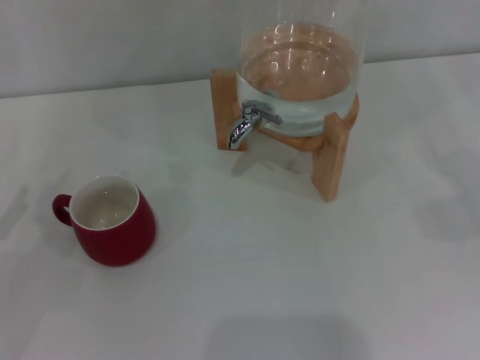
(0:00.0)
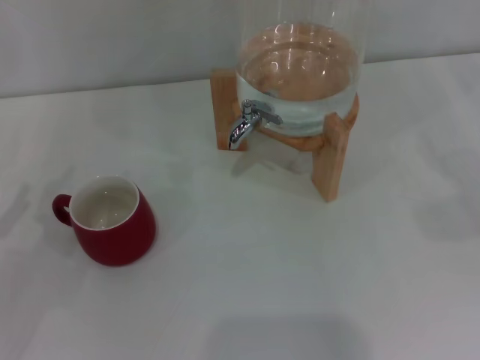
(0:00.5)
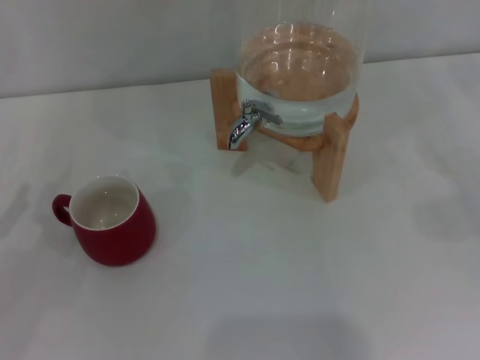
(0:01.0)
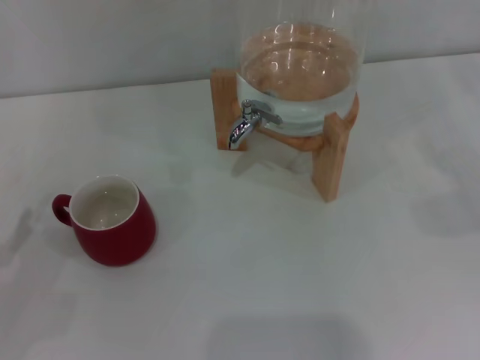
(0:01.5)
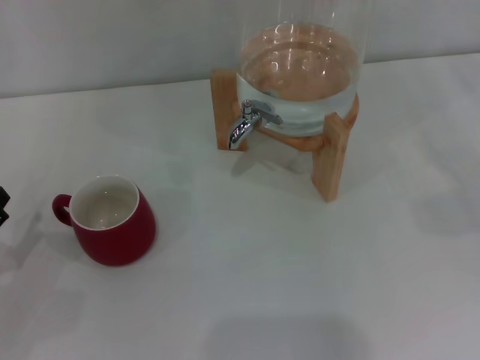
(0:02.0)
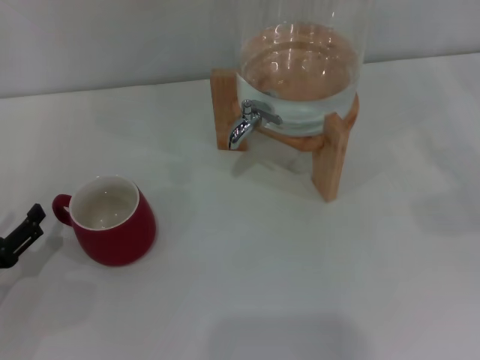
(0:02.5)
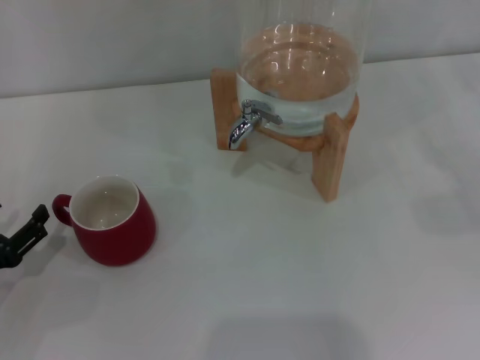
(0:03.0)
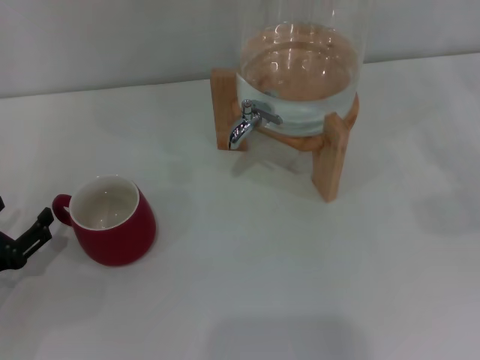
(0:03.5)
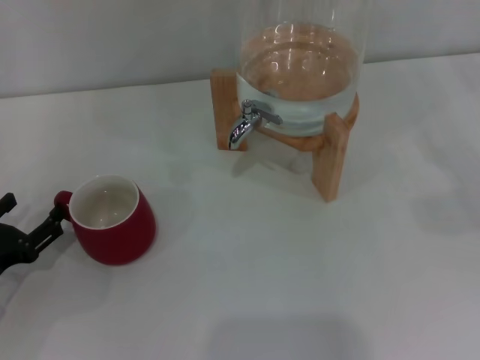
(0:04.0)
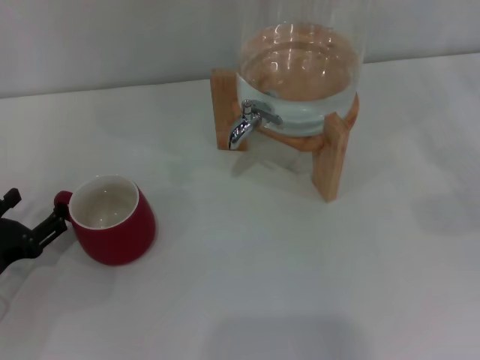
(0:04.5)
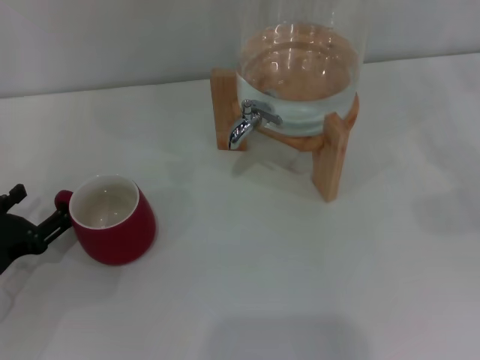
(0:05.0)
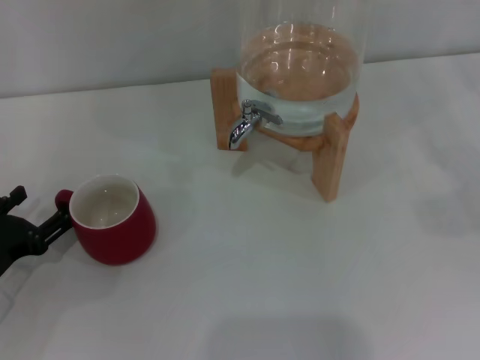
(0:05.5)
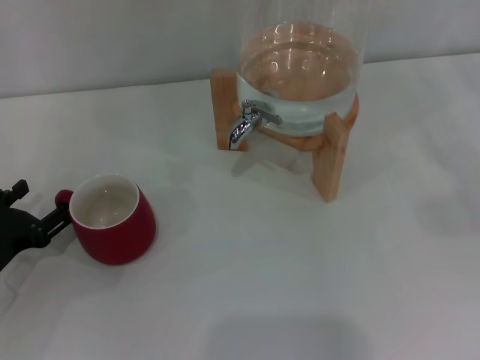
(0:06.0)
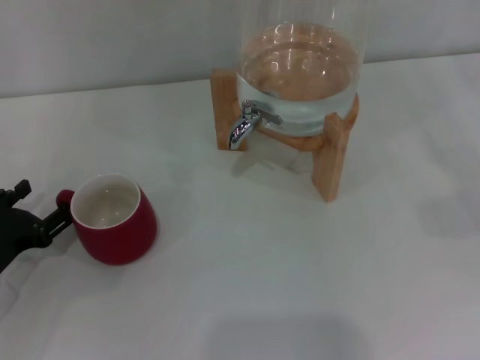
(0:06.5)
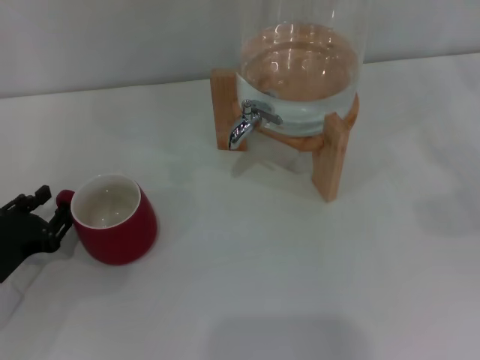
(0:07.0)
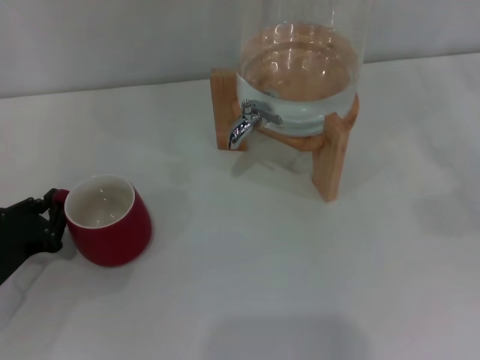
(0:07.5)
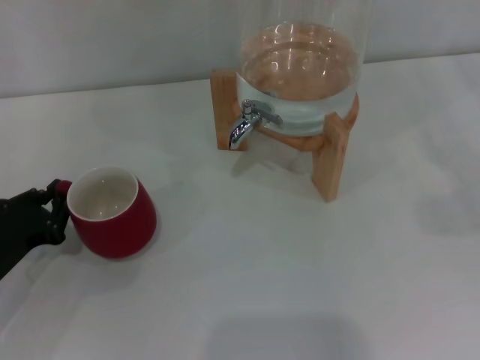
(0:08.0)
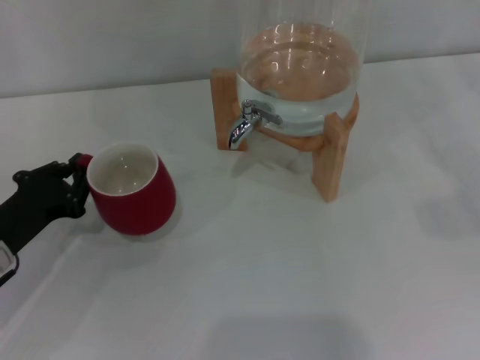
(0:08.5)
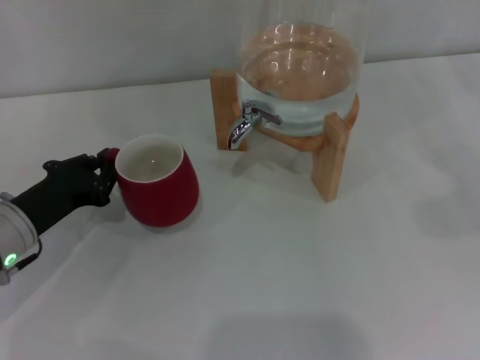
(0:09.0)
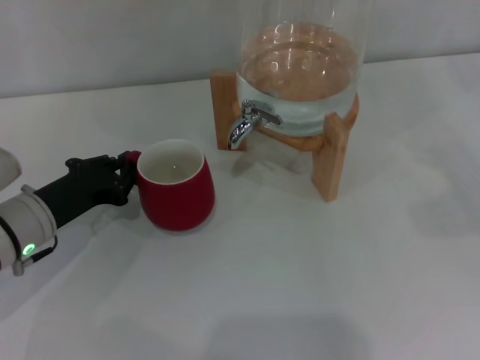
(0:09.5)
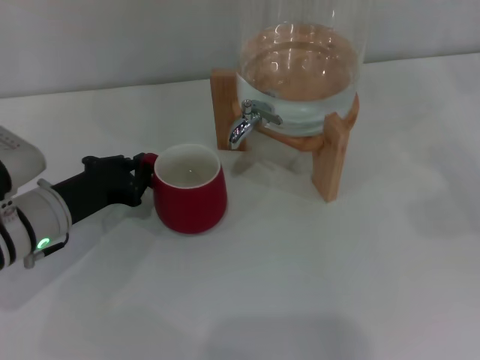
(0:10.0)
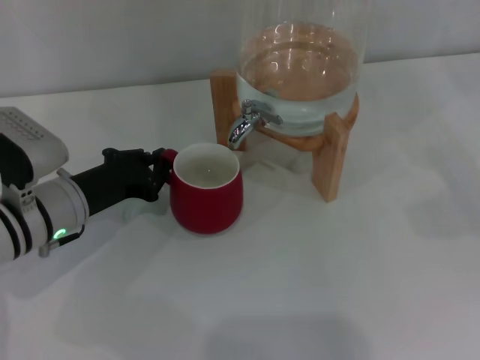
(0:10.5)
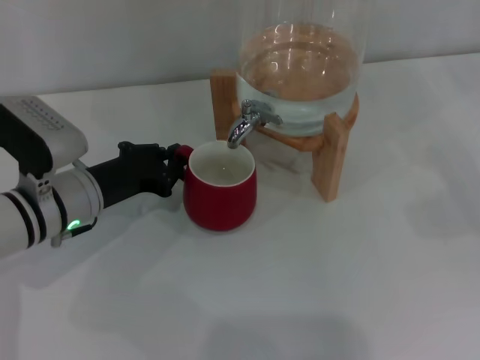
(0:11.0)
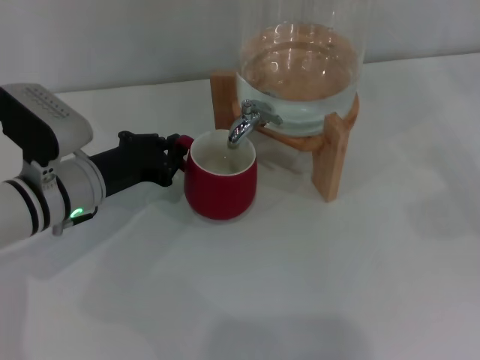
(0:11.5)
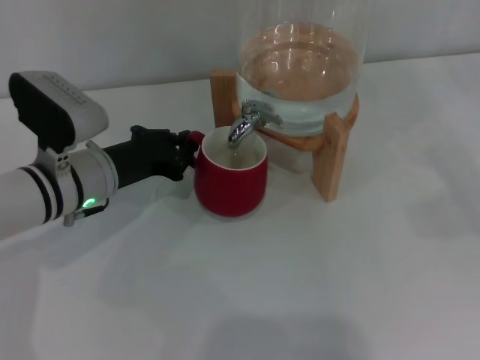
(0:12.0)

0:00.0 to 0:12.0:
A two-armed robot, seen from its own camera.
Task of the whole recording: the left gripper pick up the red cup and place it horizontally under the faucet, the right gripper turn on the faucet to fill the cup, and then turn off the faucet.
0:02.0 to 0:06.0: There are only small adjustments of the grippers.
0:06.0 to 0:08.0: The left gripper closes up.
0:08.0 to 0:10.0: The left gripper heads to the right and forward, covering some 10 cm.
0:10.0 to 0:12.0: The left gripper goes some 5 cm to the right.

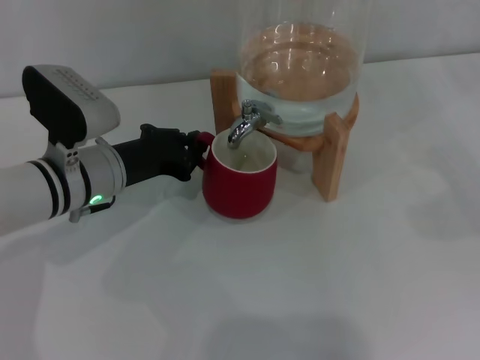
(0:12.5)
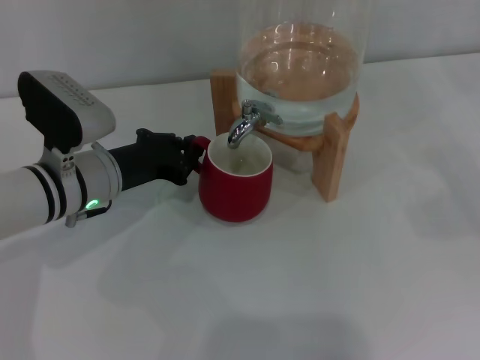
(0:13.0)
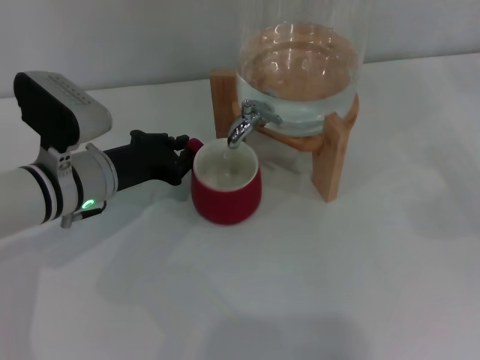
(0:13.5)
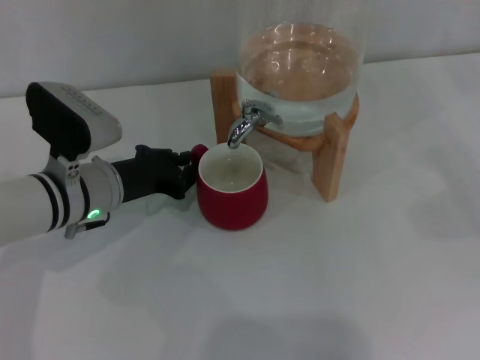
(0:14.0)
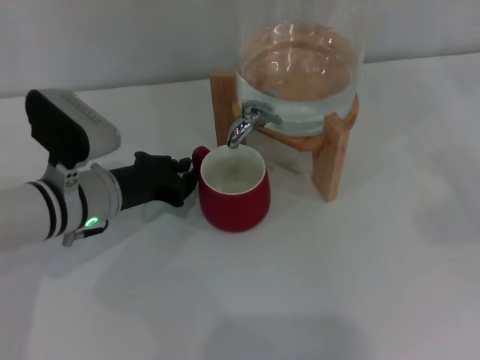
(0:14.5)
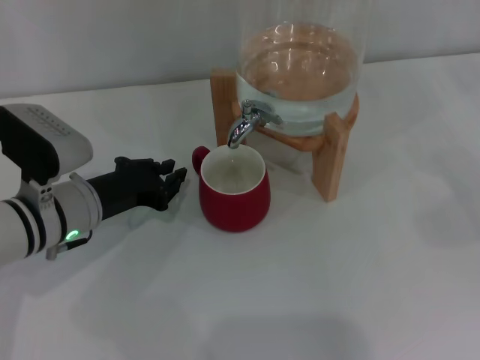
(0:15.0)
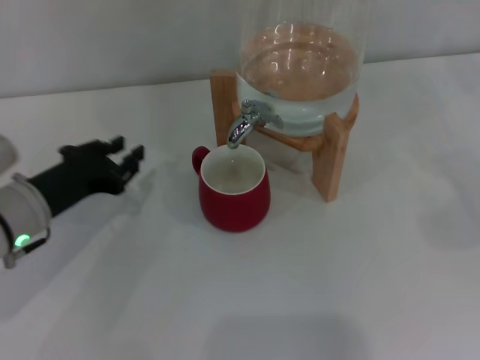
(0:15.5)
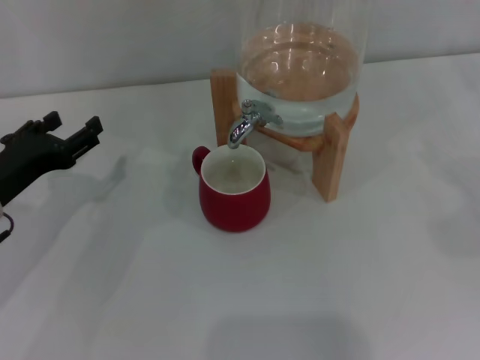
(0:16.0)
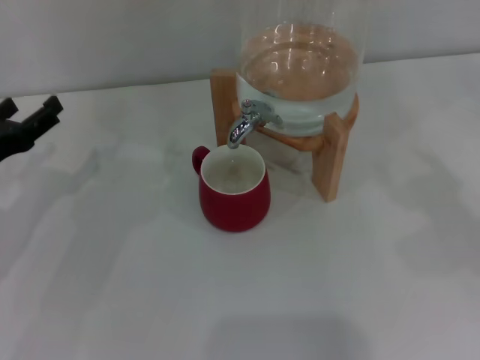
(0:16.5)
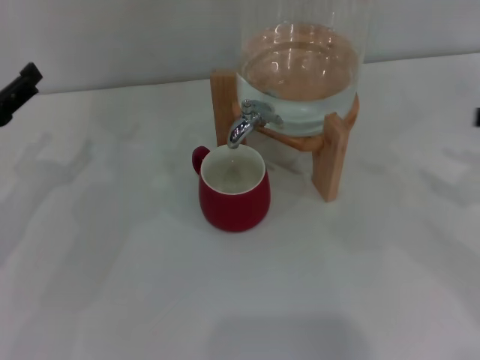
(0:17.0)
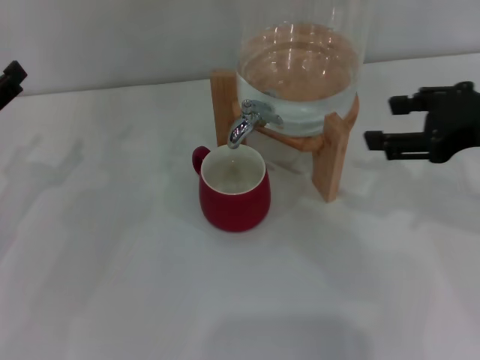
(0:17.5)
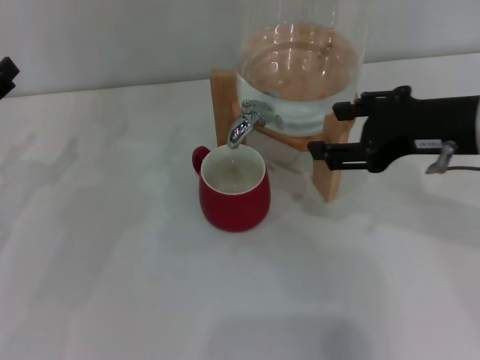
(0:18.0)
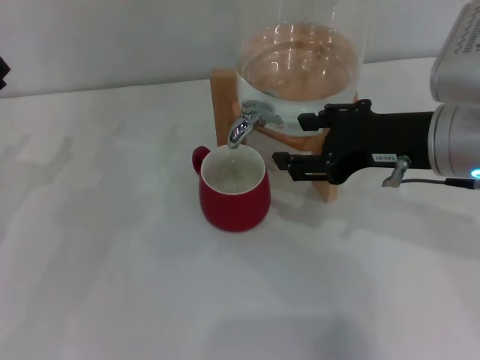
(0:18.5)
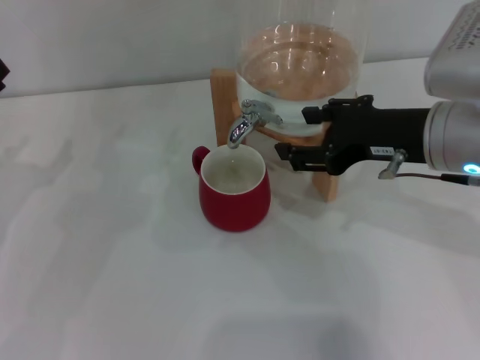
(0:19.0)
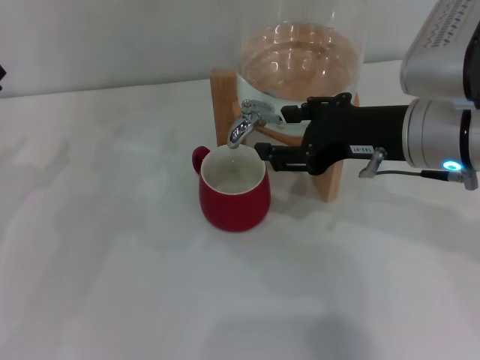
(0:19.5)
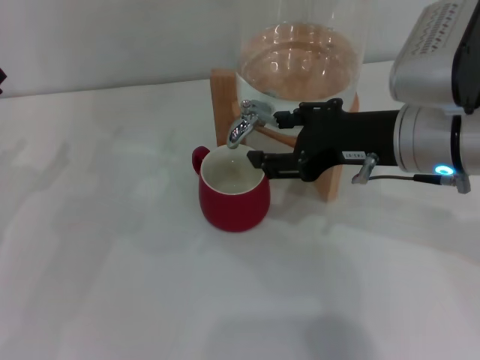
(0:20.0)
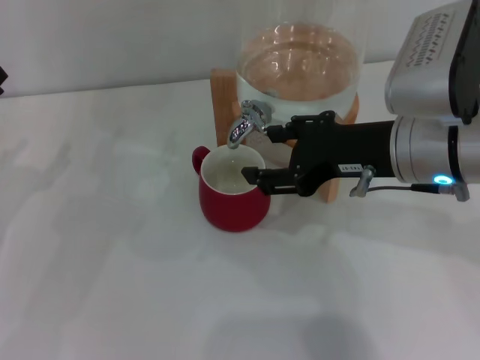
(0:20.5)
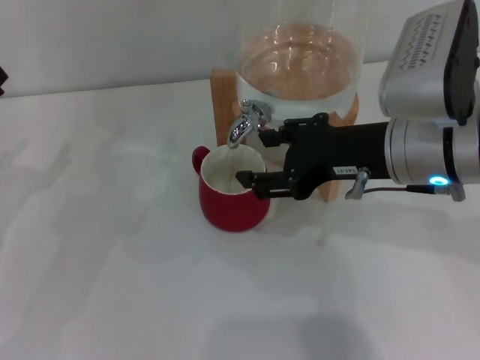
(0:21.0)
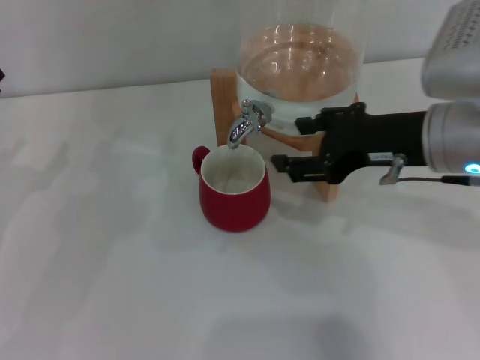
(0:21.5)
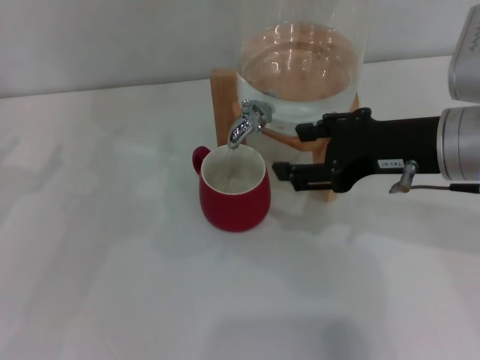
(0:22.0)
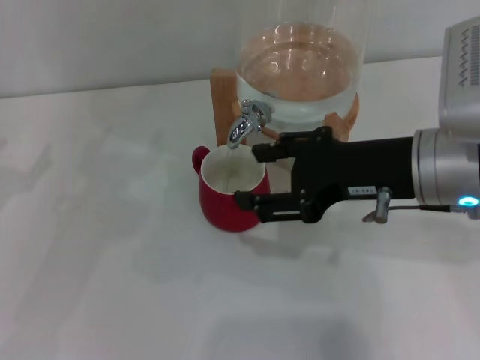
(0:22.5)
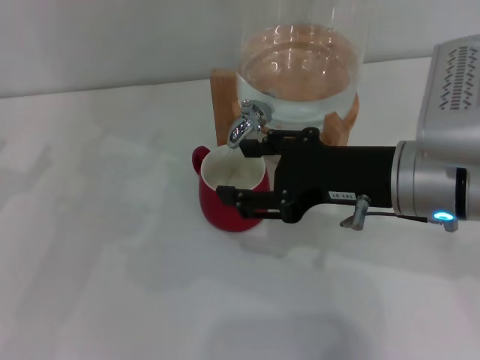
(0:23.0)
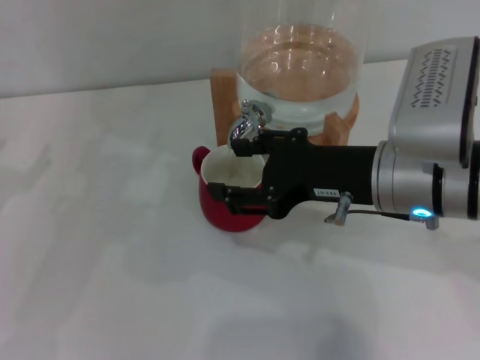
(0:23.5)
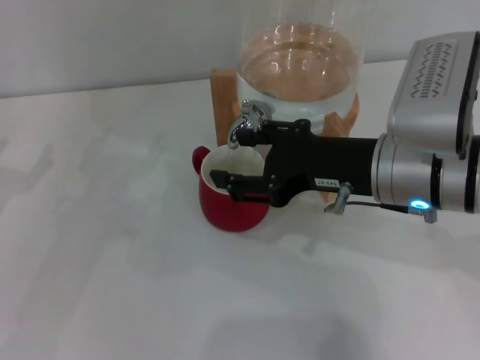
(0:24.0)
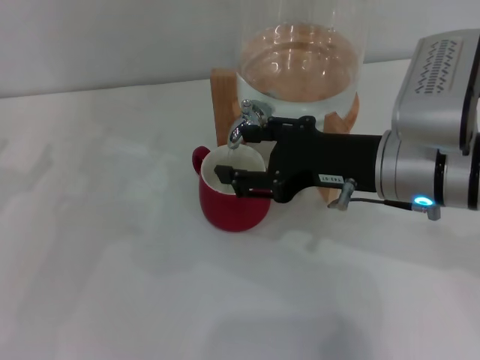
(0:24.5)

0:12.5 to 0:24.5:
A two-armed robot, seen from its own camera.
Task of the whole recording: the left gripper pick up the red cup and place it horizontally under the faucet, the right gripper turn on the faucet to fill the cup, and then turn off the faucet.
Step, 0:12.5 to 0:14.5: Move the cup beneath the water dispenser nozzle with the left gripper.
Step, 0:15.0 to 0:21.0: Open the dispenser valve and fill the cup with water with the right gripper.
0:12.5 to 0:14.5: The grippers make only small movements.
0:14.5 to 0:16.5: The left gripper heads to the left, covering some 10 cm, and opens.
0:16.5 to 0:18.5: The right gripper goes about 25 cm to the left.
0:18.5 to 0:24.5: The grippers make only small movements.

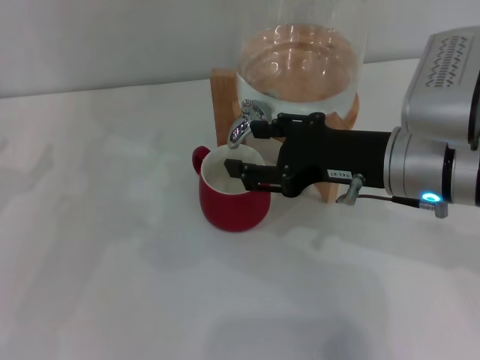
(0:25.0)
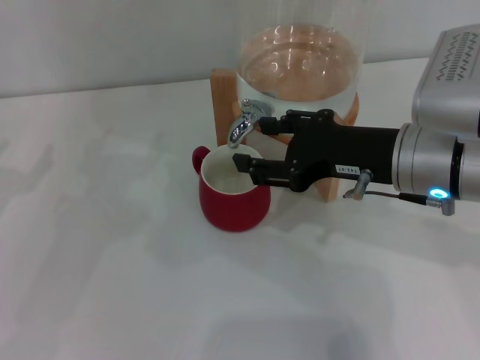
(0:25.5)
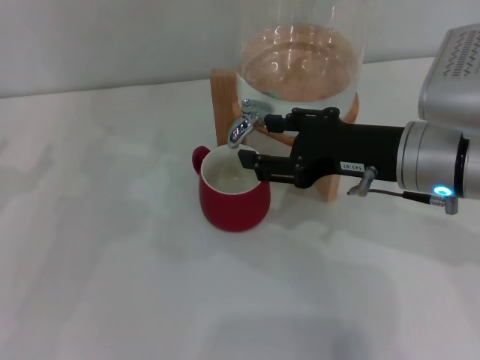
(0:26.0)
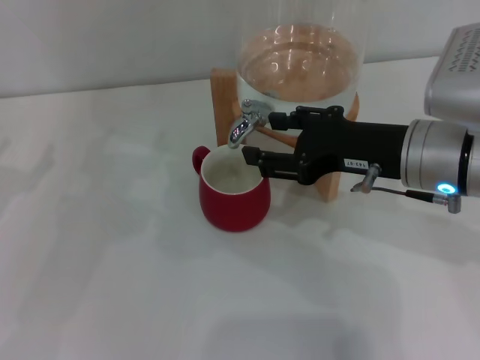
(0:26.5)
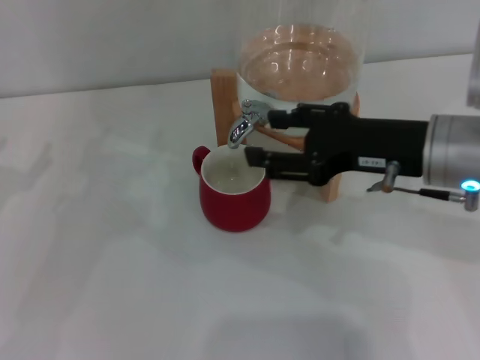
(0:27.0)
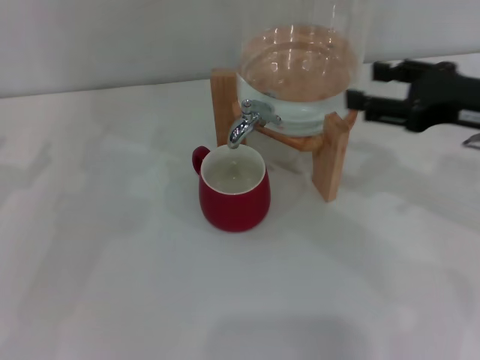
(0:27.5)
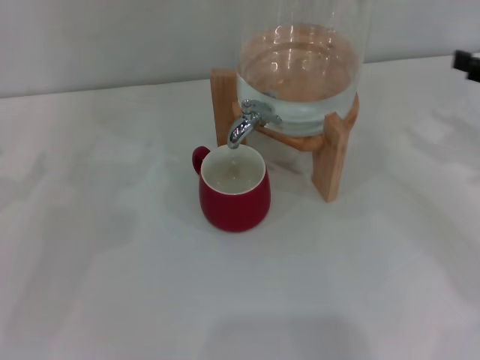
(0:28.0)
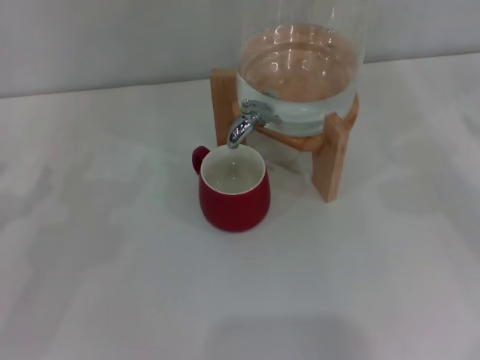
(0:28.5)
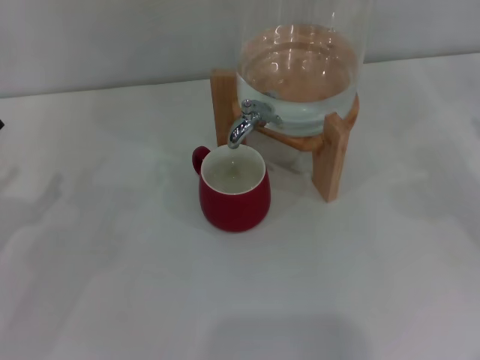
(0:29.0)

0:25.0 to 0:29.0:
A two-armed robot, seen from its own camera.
Task of the whole recording: the left gripper pick up the red cup and place it horizontally under the faucet, the right gripper turn on the faucet to fill the cup, and then turn off the faucet.
0:25.0 to 0:27.0: The grippers stay close to where they were, moving slightly.
0:27.0 to 0:29.0: The right gripper heads to the right, covering about 25 cm.
